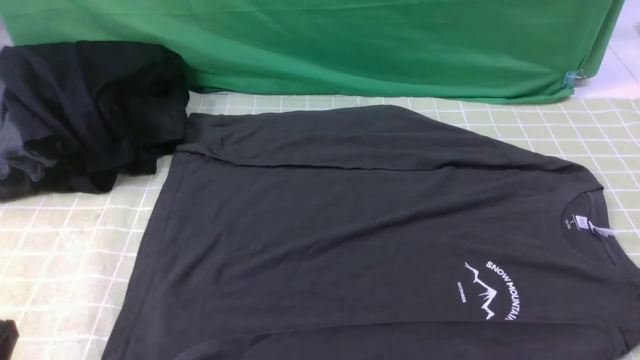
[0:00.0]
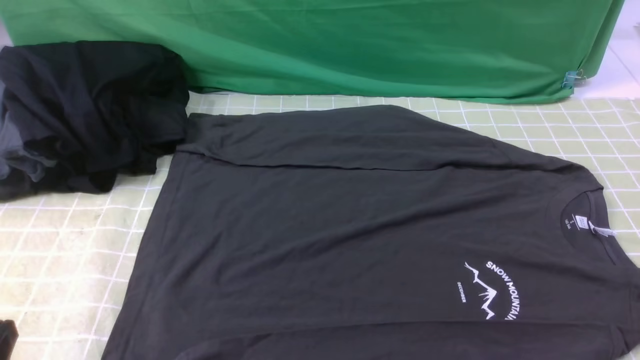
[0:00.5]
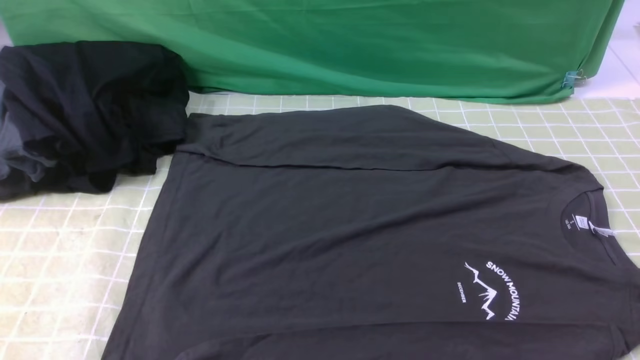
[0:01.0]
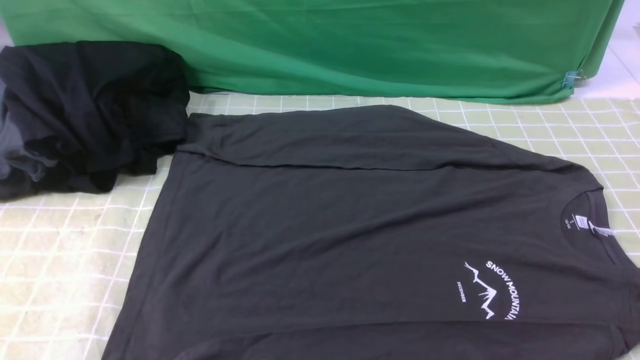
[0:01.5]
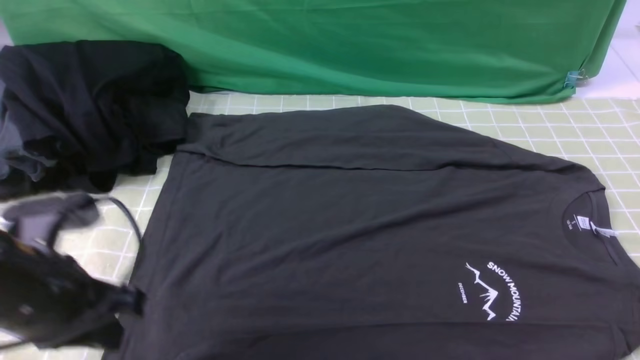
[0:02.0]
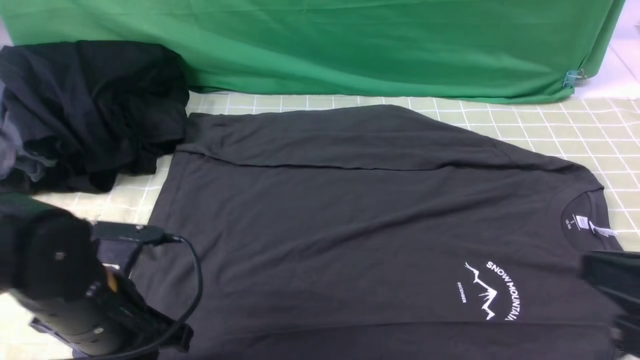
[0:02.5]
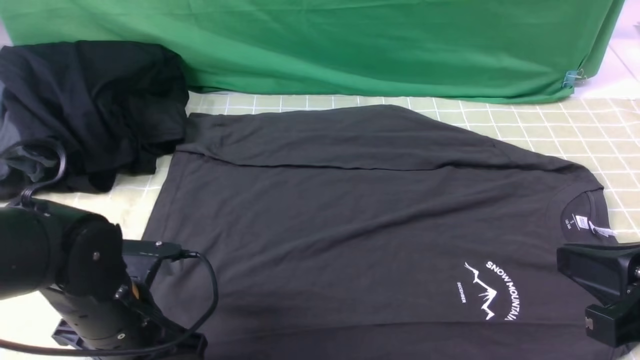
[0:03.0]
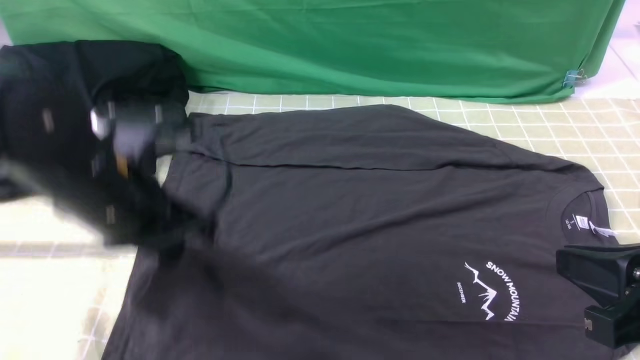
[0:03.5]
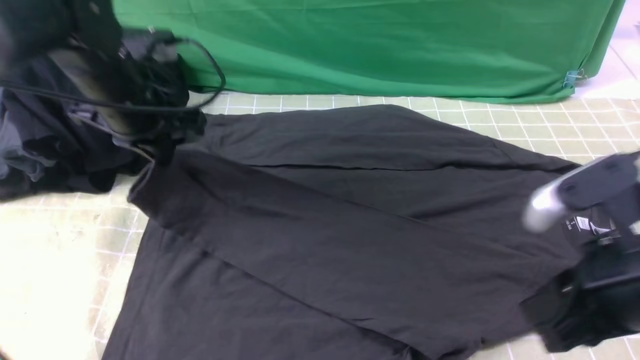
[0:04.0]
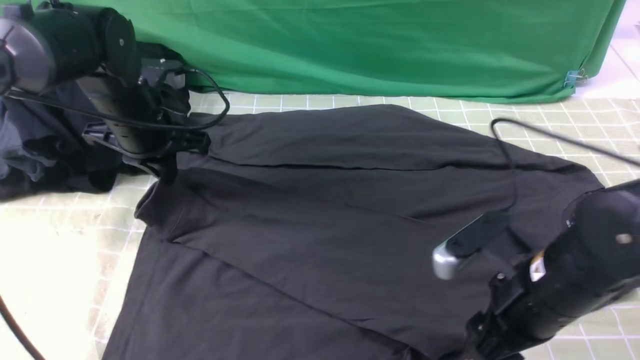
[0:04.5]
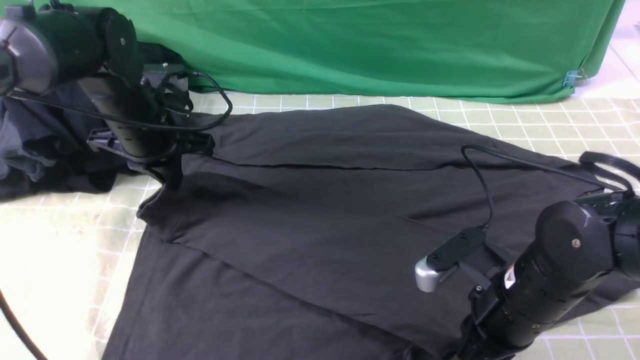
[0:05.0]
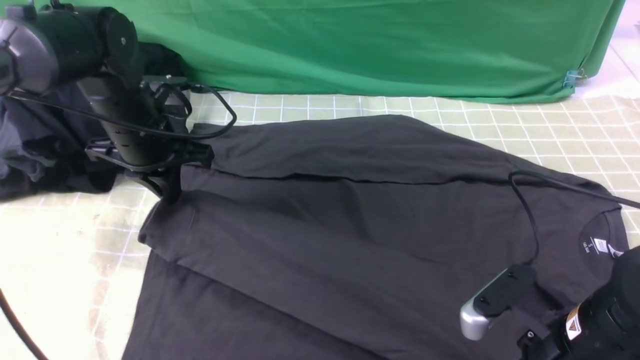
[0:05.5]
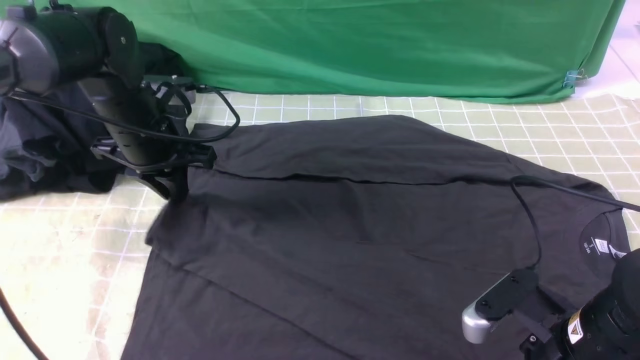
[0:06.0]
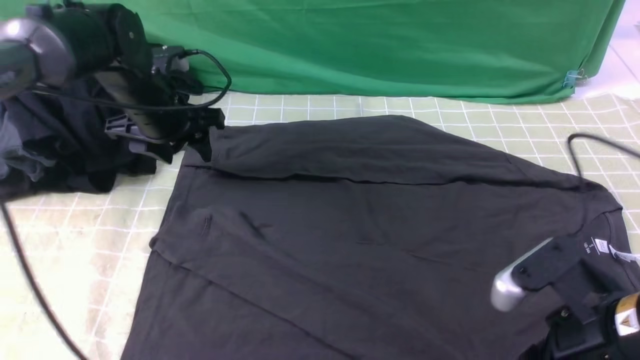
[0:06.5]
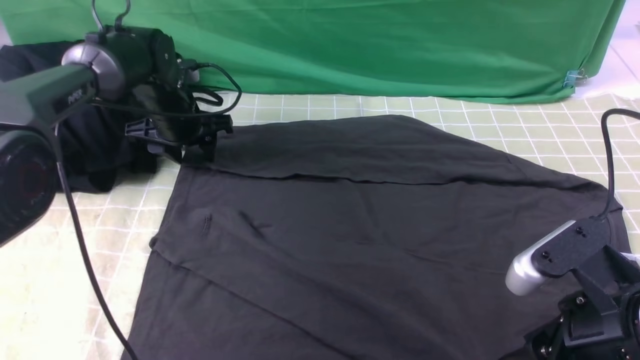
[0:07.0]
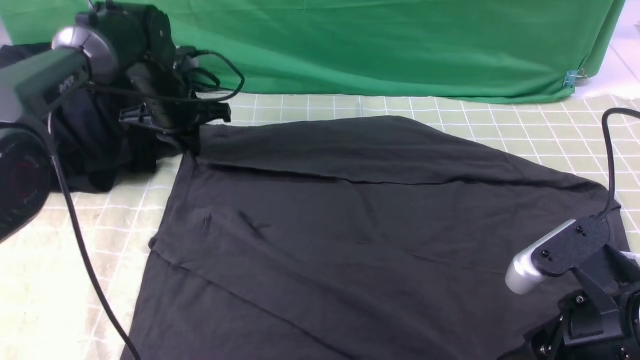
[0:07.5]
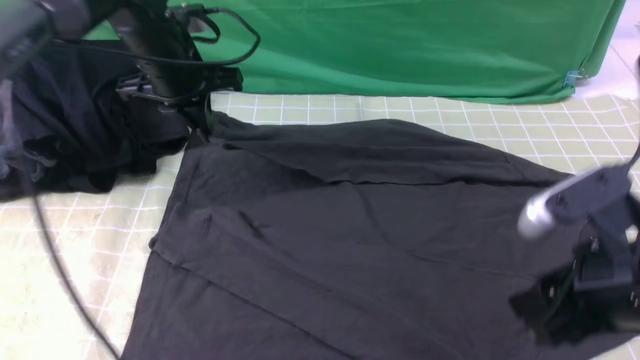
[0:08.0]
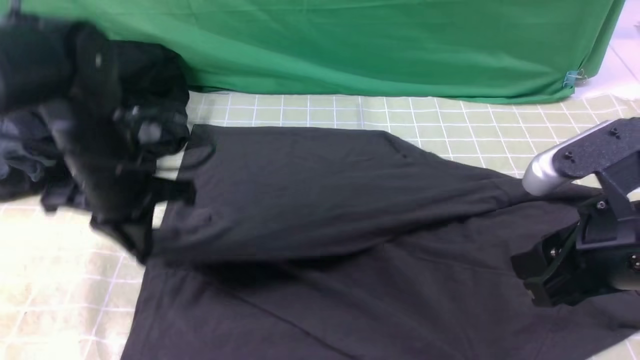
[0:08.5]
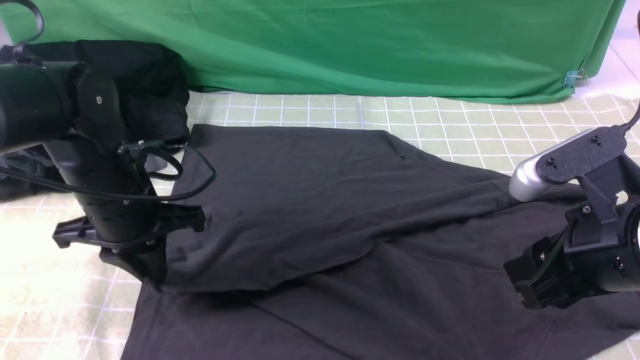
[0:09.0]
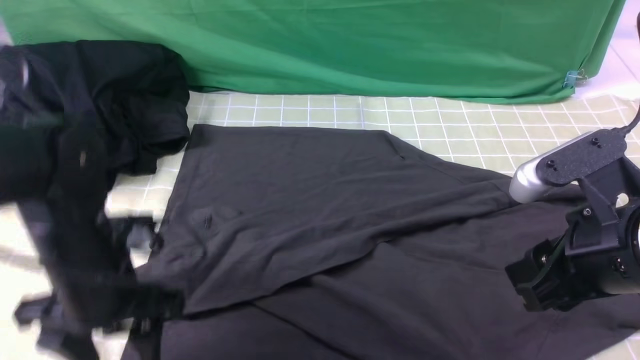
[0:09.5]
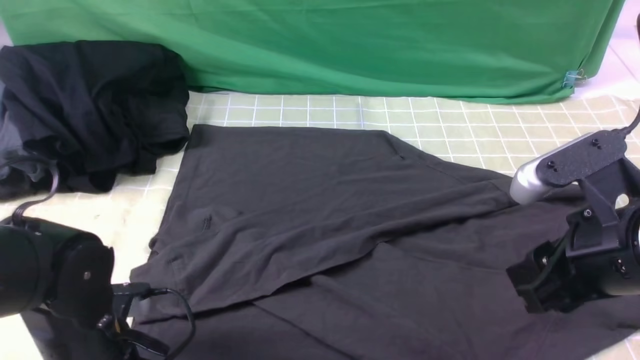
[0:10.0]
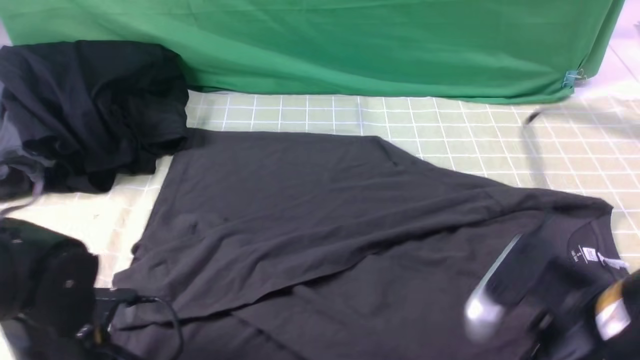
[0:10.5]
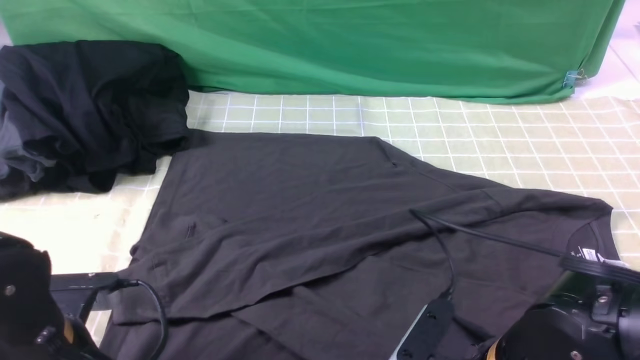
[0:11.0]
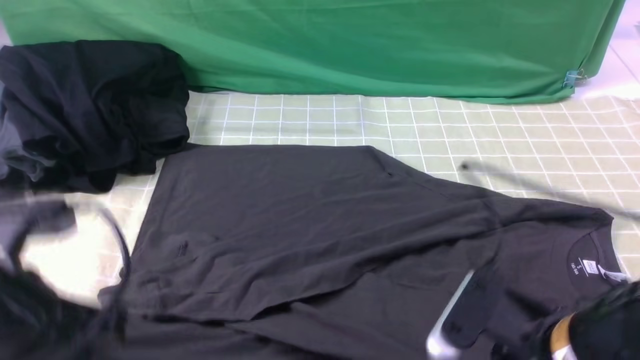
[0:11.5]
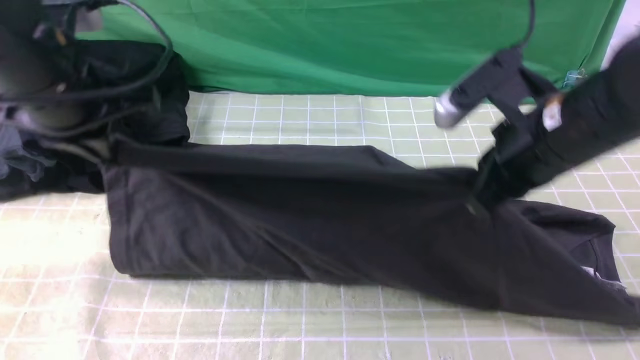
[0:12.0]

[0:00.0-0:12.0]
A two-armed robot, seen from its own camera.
Step, 0:00.0 to 0:03.0: use the left arm to clamp the cuff closest to it.
Step, 0:03.5 to 0:06.0: use the left arm to drag and place the cuff at the centered position on the left edge of the fabric.
Step, 0:06.5 to 0:07.0: use the left arm to clamp the cuff farthest from it.
Step, 0:07.5 to 0:09.0: use the left arm to drag and drop the cuff onto the cuff closest to the left arm.
Step, 0:09.5 to 0:11.0: use both arms simultaneously to clamp the lower edge of the clothing fabric.
0:00.0 to 0:02.0: The right gripper is displaced upward by about 5 cm, and closes its fingers. The left gripper travels forward by approximately 15 cm, and travels upward and back again, about 15 cm each way.
0:02.0 to 0:04.0: The left gripper heads forward, covering roughly 20 cm, and opens, then closes again, while the right gripper is displaced forward and to the left by approximately 15 cm.
0:04.0 to 0:06.0: The right gripper heads downward, covering roughly 10 cm, and closes, then reopens. Meanwhile the left gripper opens.
0:06.0 to 0:08.0: The left gripper closes. The right gripper heads upward, covering roughly 10 cm.
0:08.0 to 0:10.0: The left gripper travels backward and downward by about 30 cm, and opens its fingers.
0:10.0 to 0:12.0: The right gripper is displaced forward by roughly 10 cm, and closes up; the left gripper goes roughly 25 cm upward and forward, and closes its fingers.

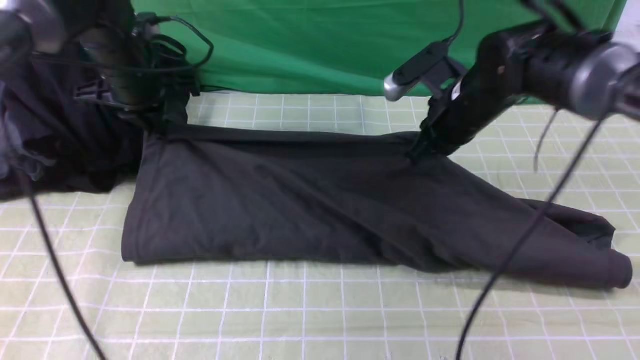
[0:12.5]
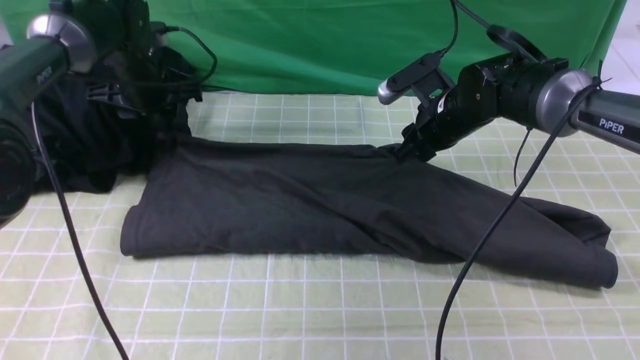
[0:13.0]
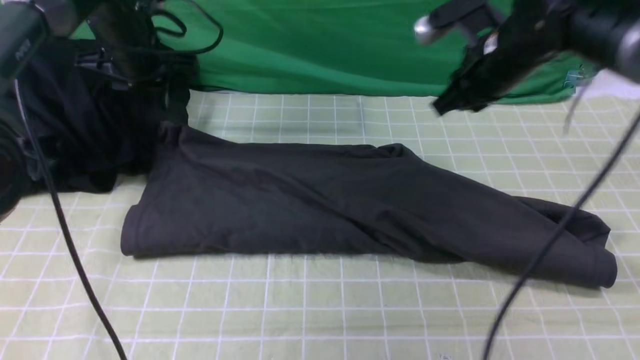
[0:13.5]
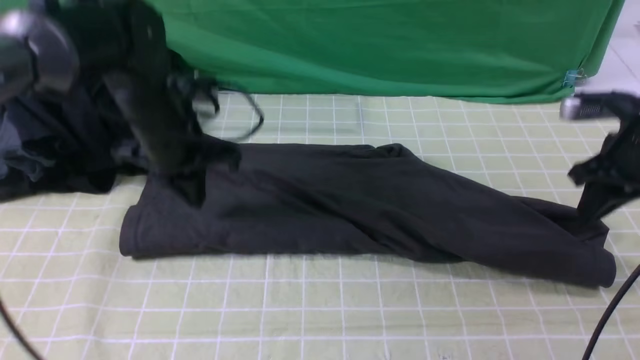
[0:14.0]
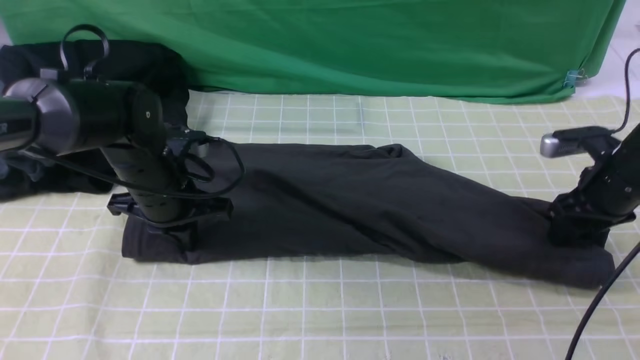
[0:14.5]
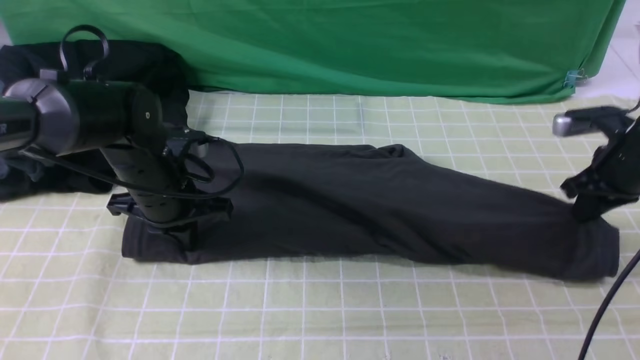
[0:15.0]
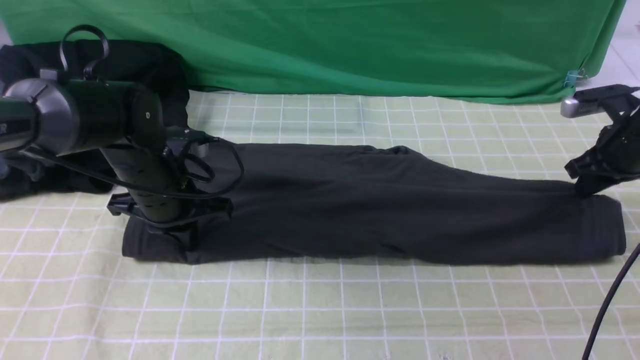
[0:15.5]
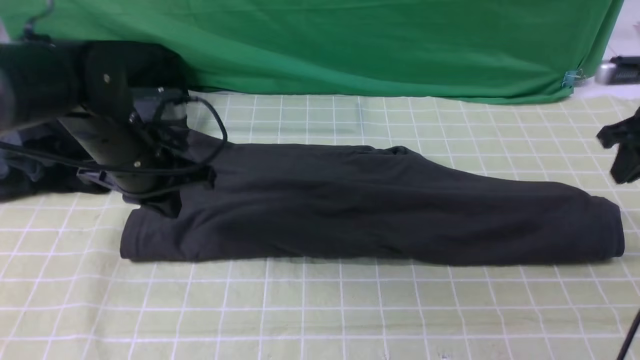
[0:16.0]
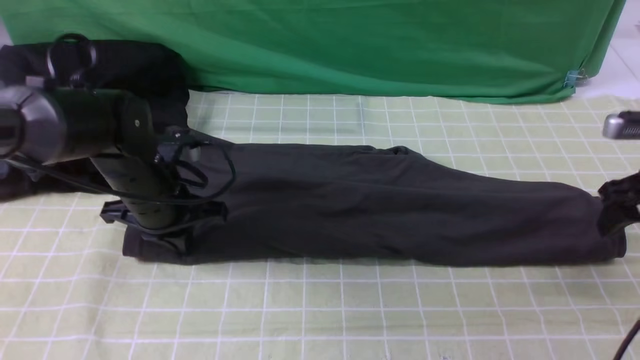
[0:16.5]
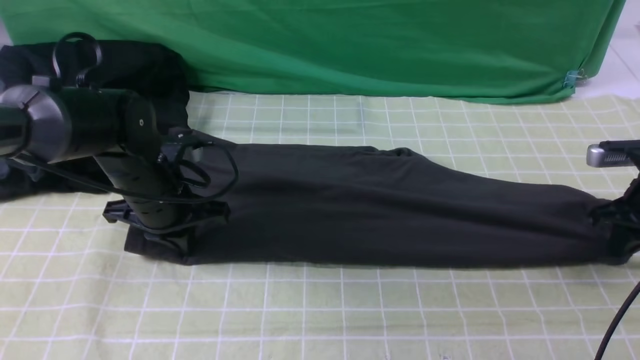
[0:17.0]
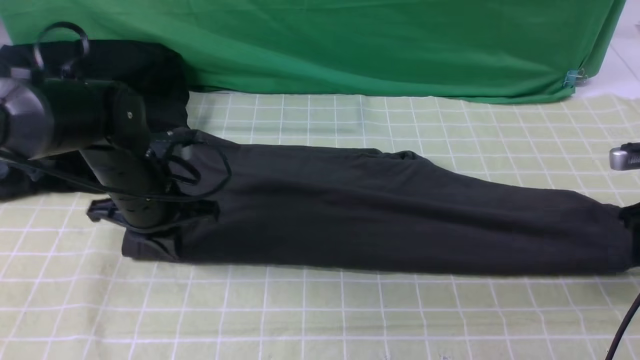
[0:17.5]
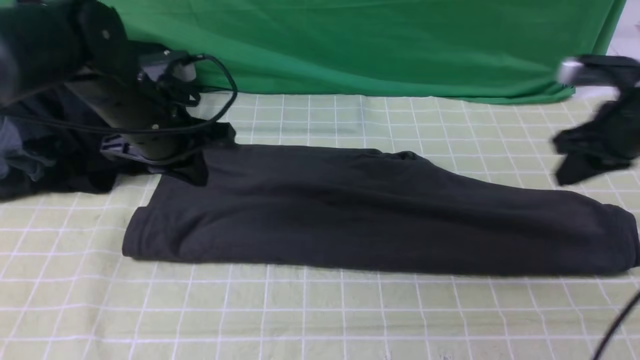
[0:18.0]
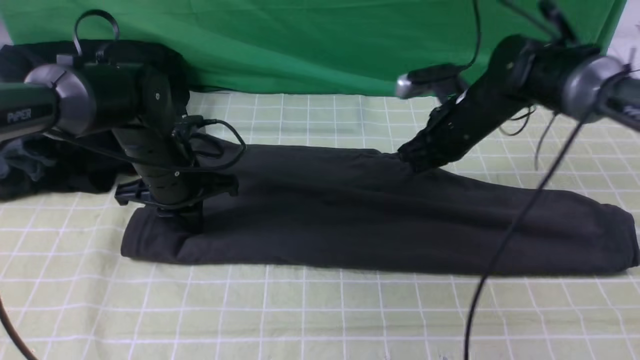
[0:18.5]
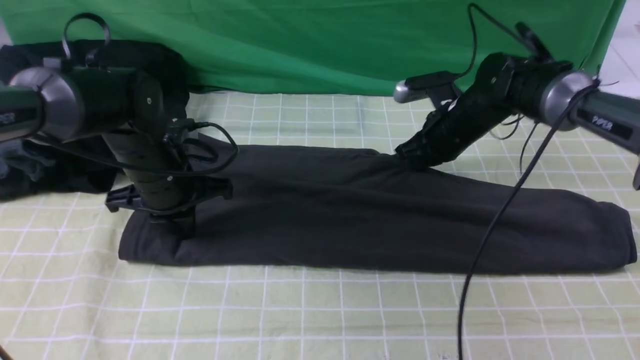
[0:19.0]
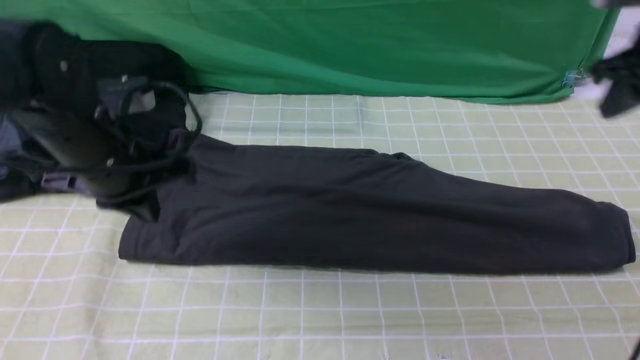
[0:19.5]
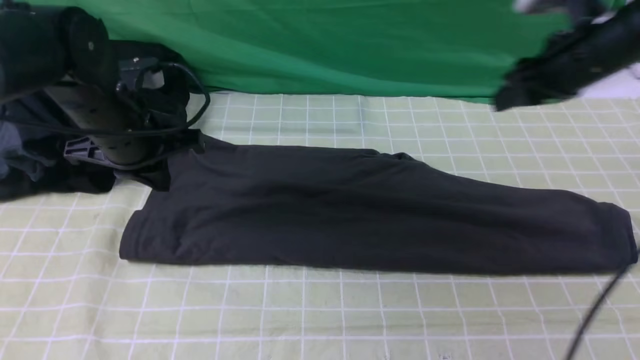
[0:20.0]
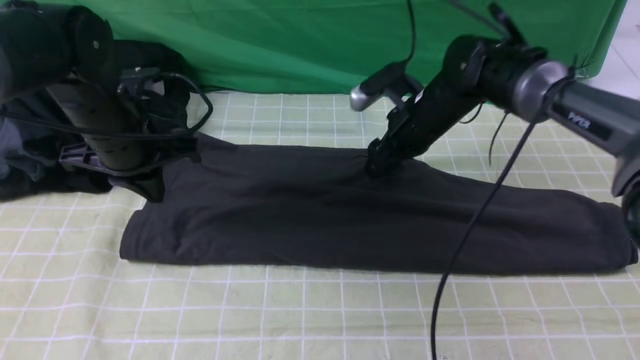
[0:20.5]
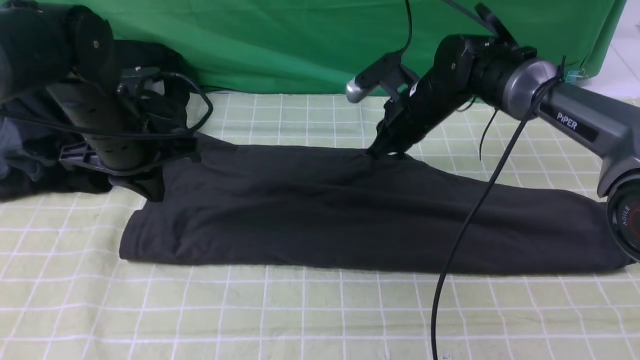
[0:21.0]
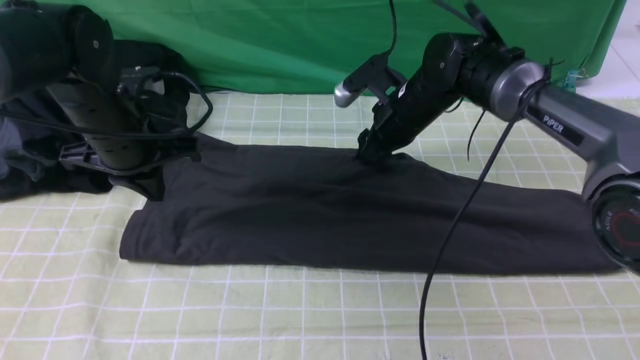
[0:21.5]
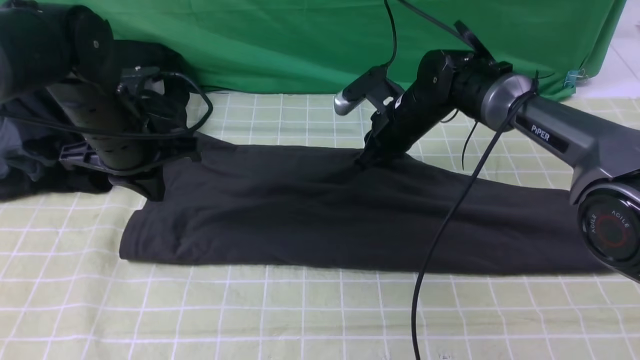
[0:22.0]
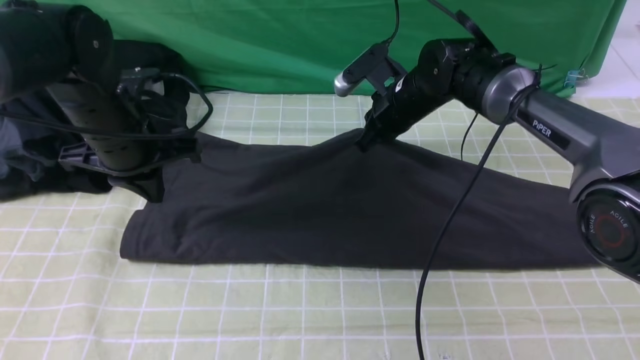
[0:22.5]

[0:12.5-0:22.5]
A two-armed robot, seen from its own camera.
0:12.5 to 0:14.5: The left gripper heads backward and downward, covering approximately 15 cm, and opens and closes again, while the right gripper heads to the right, covering about 20 cm, and opens its fingers.
0:14.5 to 0:16.5: The right gripper closes, then reopens.
0:16.5 to 0:18.5: The left gripper goes upward and returns, some 5 cm each way, while the right gripper shifts approximately 25 cm to the left and forward, and closes.
0:18.5 to 0:20.5: The right gripper moves roughly 15 cm to the right and comes back, and opens up. Meanwhile the left gripper is displaced upward by approximately 10 cm.
0:20.5 to 0:22.5: The right gripper closes its fingers.
